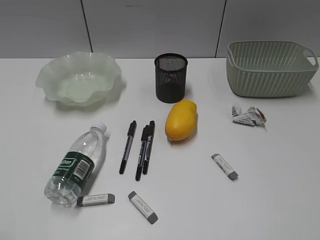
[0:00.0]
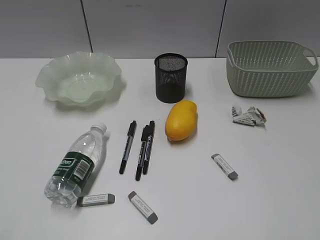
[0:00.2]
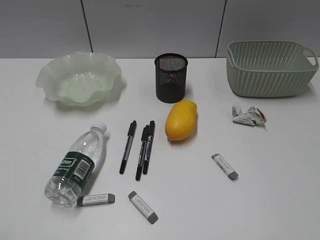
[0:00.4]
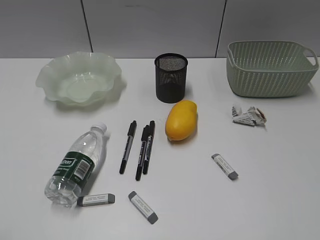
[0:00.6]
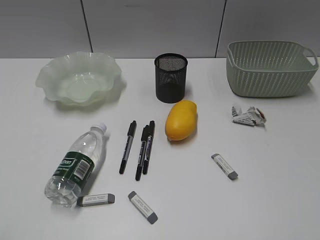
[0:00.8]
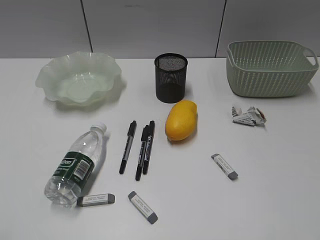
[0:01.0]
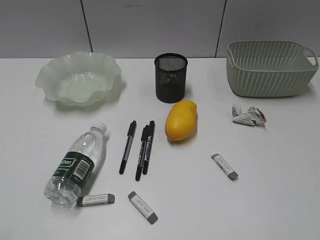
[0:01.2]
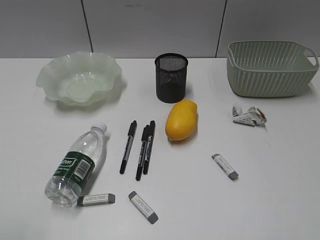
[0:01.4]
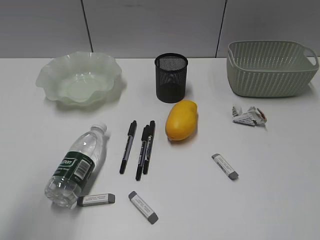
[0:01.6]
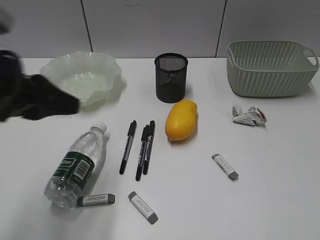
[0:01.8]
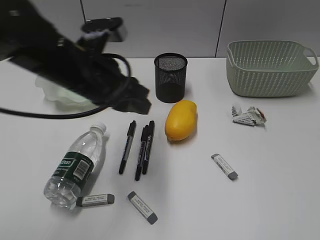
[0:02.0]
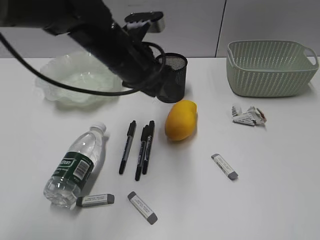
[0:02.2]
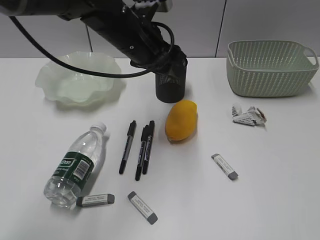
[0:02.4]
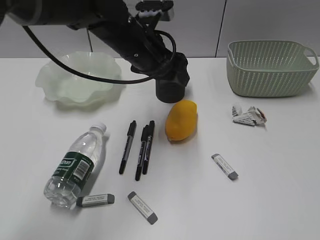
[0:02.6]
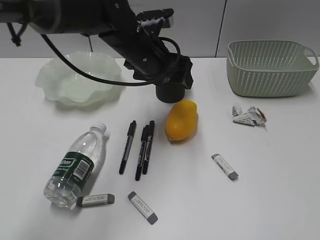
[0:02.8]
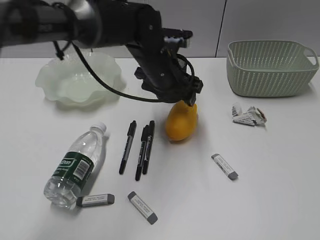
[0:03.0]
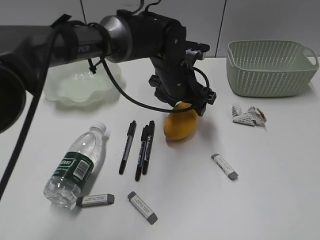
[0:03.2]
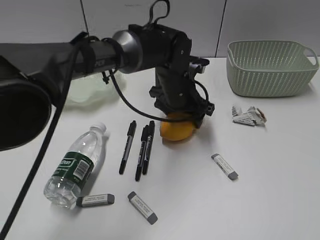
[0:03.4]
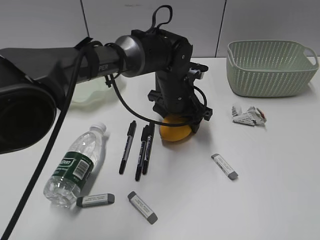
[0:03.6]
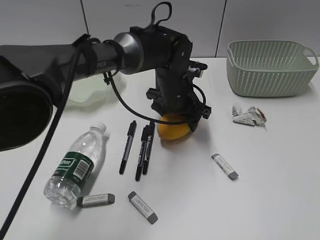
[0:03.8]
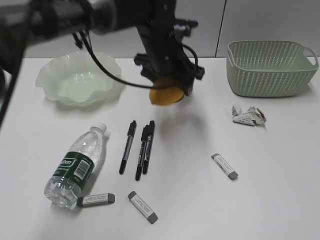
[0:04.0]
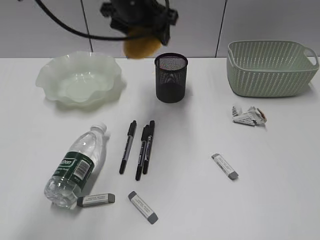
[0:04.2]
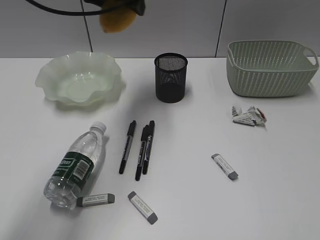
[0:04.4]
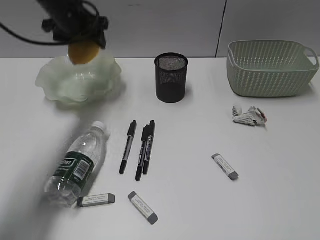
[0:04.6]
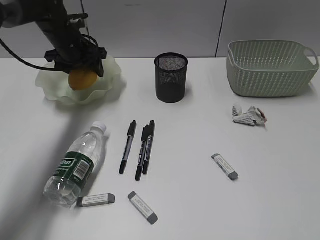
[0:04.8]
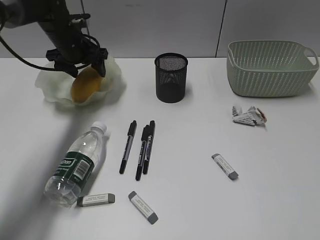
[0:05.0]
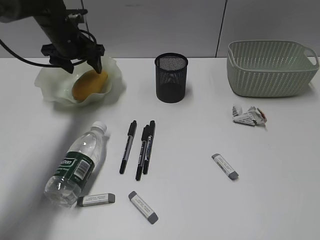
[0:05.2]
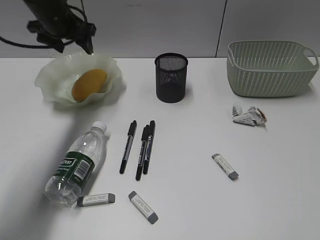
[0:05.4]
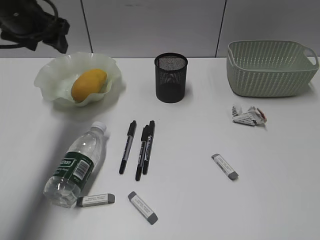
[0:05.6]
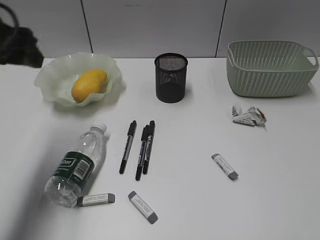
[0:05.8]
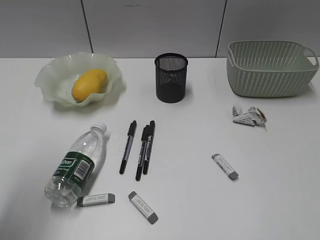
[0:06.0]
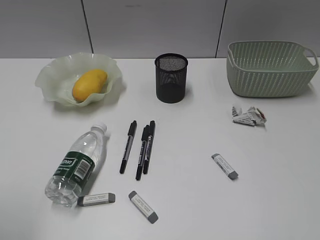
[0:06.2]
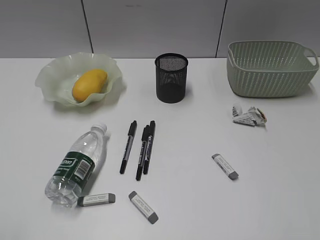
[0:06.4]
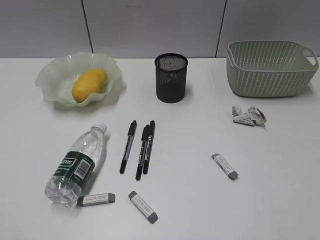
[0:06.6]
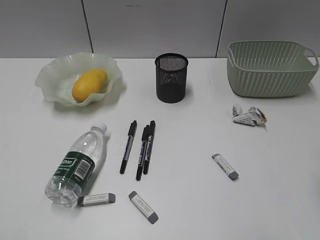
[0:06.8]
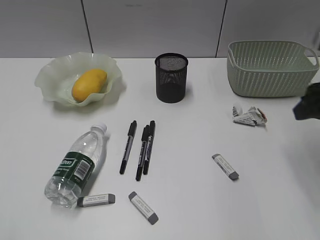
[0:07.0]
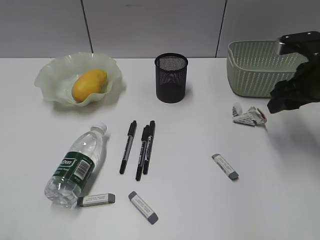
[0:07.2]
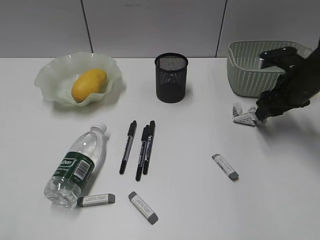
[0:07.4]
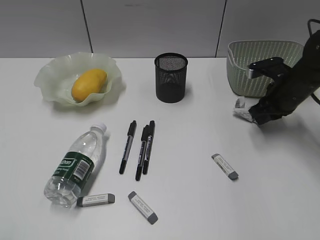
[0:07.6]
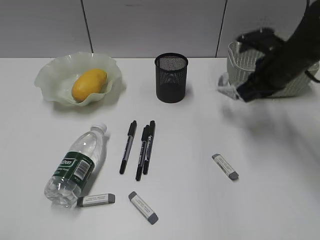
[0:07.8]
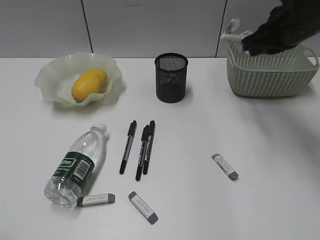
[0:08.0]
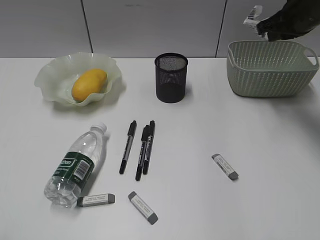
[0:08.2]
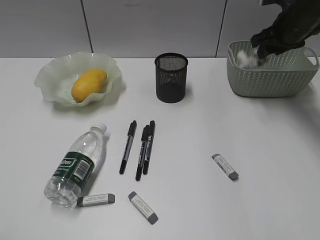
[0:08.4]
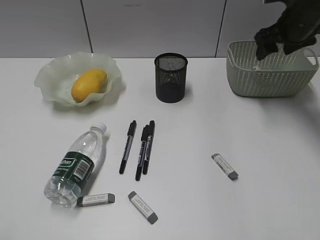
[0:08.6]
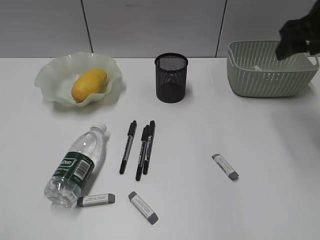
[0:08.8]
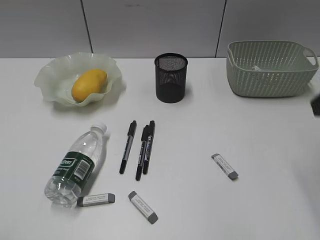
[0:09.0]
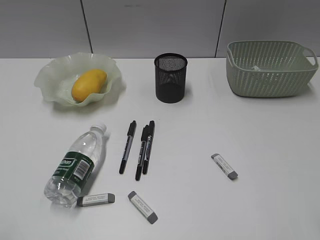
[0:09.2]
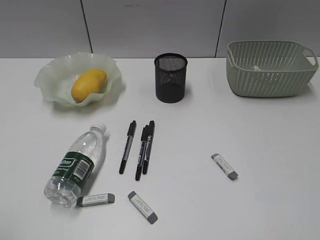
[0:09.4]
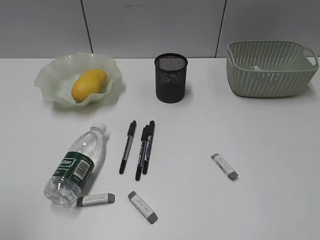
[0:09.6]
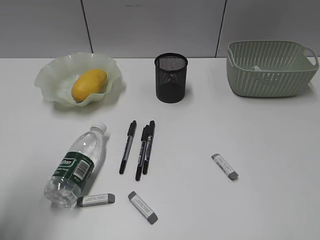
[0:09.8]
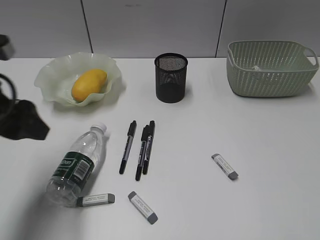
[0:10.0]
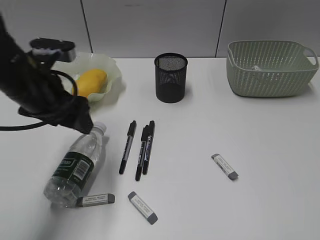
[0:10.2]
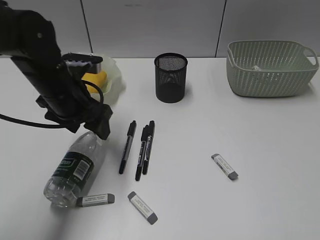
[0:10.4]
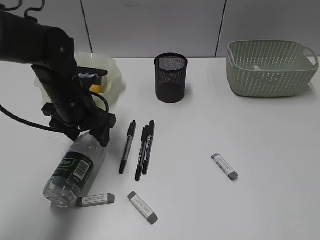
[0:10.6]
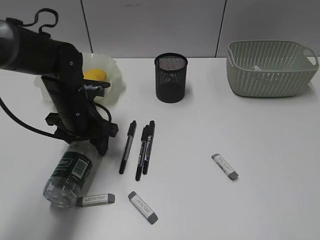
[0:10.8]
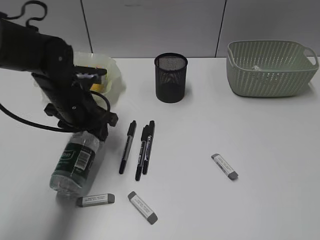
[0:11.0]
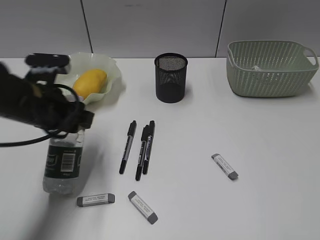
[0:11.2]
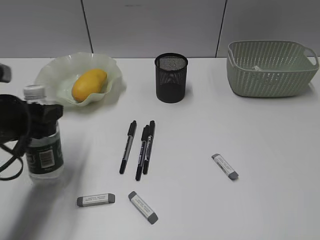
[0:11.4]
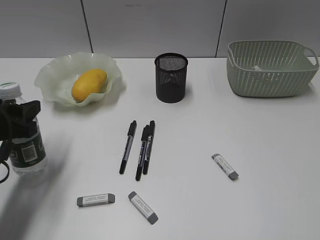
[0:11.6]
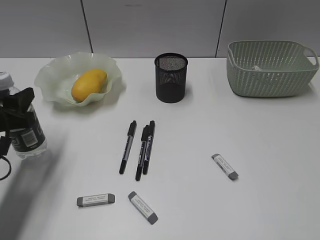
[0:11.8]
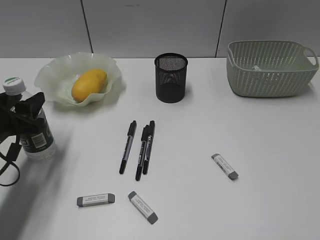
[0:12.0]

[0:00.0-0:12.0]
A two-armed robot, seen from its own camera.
Step, 1.2 to 3.8 s: Grasp the mango with left gripper.
Step, 4.0 to 5.2 s: Place the mango in the plate with left gripper.
Step, 5.4 to 7.6 s: Grasp the waste paper with right gripper.
Step, 7.8 to 8.6 s: Place the waste paper in the basket with right gripper.
Step, 8.8 to 11.0 s: Grasp the bottle with left gripper.
1.6 to 3.0 s: The left gripper is displaced forward, to the right and downward by approximately 40 cm, and opens.
3.0 to 4.4 s: The left gripper is displaced upward and to the left by some 15 cm.
4.4 to 6.0 s: The left gripper shifts roughly 30 cm backward and to the left.
6.0 to 7.6 s: The left gripper travels backward by roughly 20 cm. Meanwhile the right gripper goes roughly 40 cm forward and downward, and closes.
7.6 to 9.0 s: The right gripper is displaced upward and backward by approximately 25 cm, and opens up.
9.0 to 10.4 s: The right gripper goes roughly 25 cm backward. Meanwhile the left gripper shifts some 35 cm forward and to the right.
10.4 to 12.0 s: The left gripper is displaced to the left, backward and downward by approximately 15 cm, and closes.

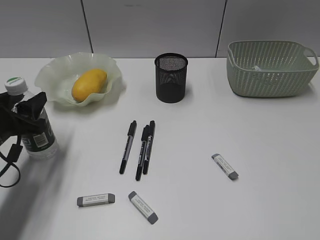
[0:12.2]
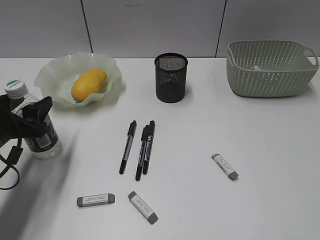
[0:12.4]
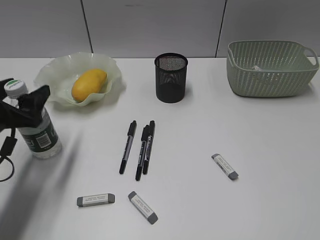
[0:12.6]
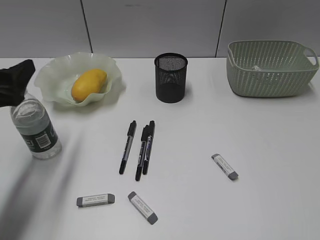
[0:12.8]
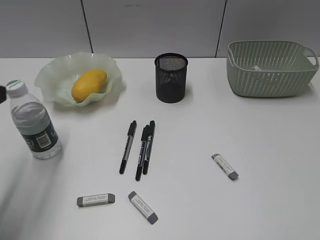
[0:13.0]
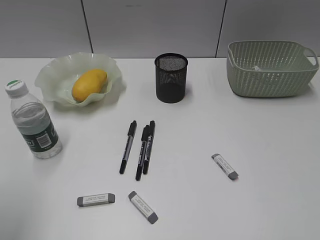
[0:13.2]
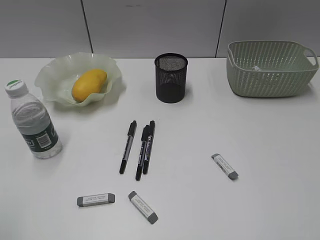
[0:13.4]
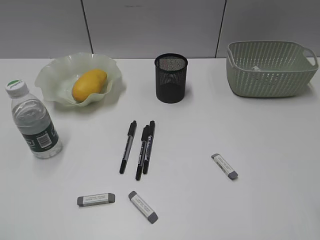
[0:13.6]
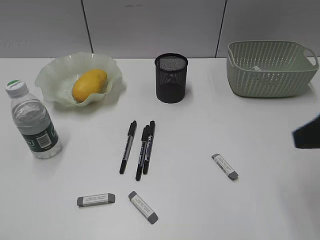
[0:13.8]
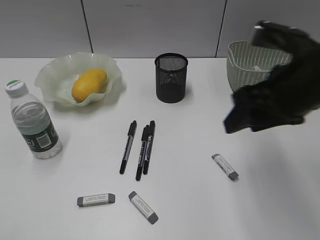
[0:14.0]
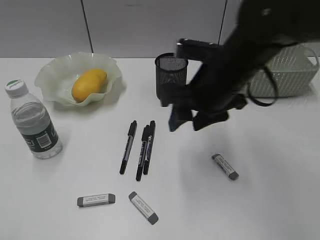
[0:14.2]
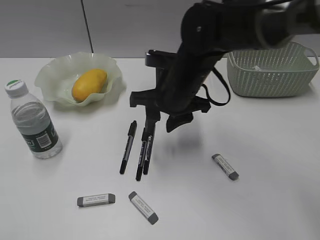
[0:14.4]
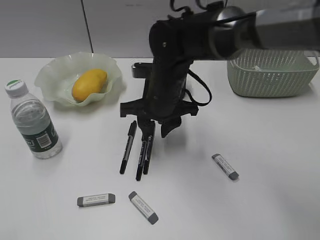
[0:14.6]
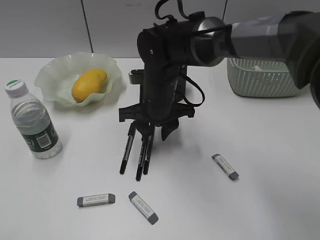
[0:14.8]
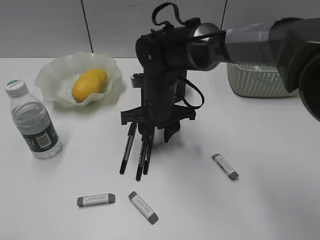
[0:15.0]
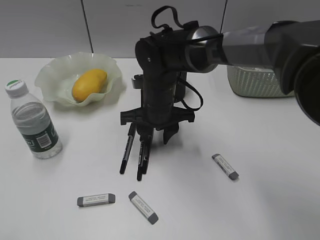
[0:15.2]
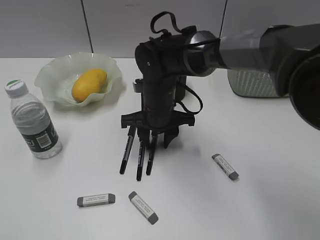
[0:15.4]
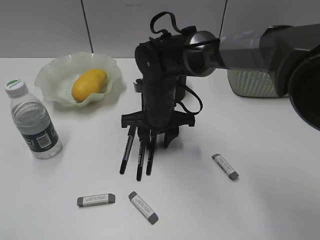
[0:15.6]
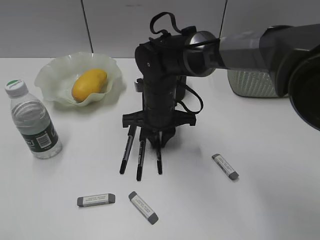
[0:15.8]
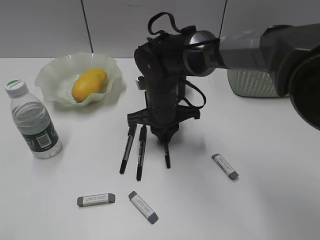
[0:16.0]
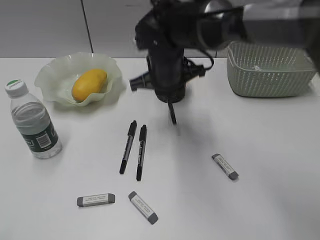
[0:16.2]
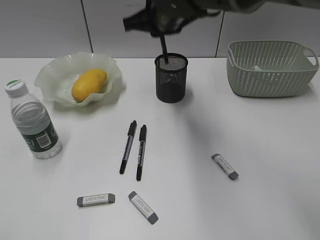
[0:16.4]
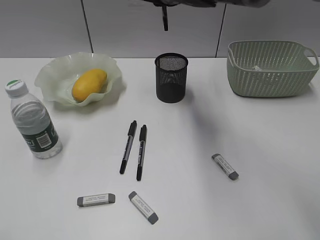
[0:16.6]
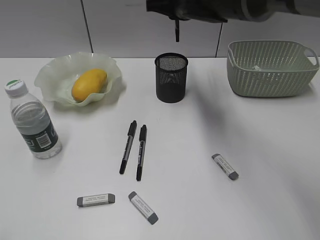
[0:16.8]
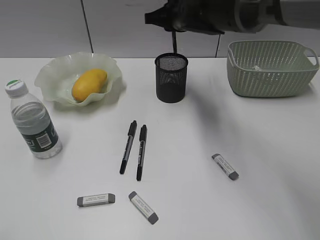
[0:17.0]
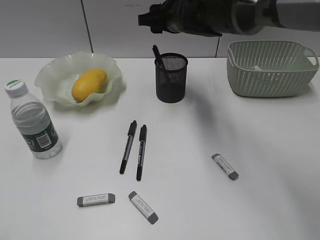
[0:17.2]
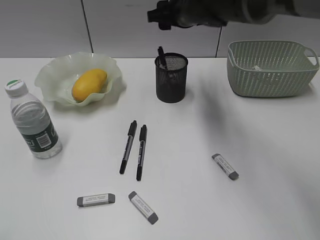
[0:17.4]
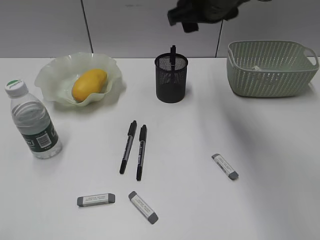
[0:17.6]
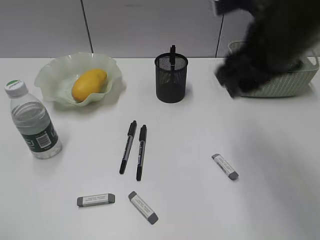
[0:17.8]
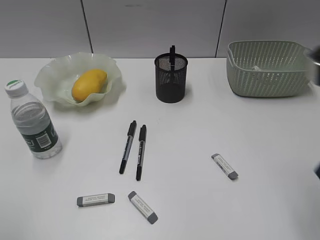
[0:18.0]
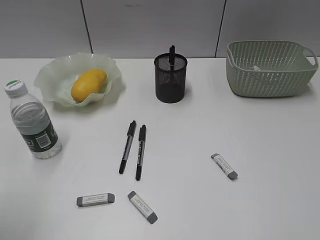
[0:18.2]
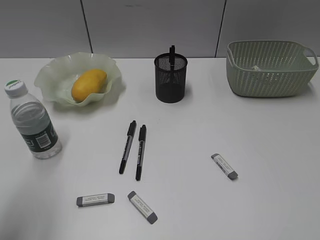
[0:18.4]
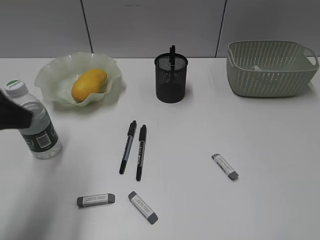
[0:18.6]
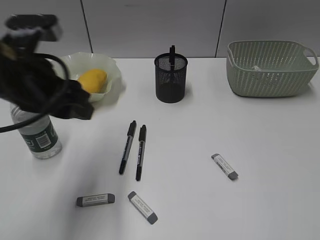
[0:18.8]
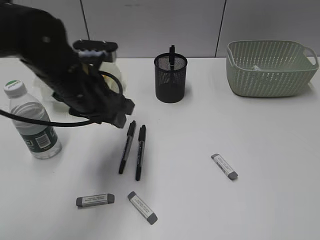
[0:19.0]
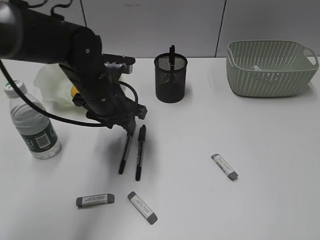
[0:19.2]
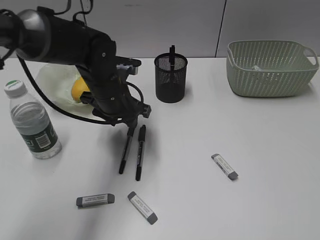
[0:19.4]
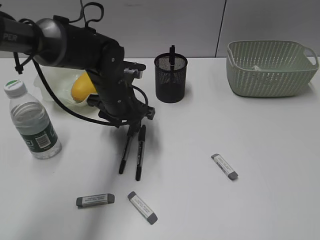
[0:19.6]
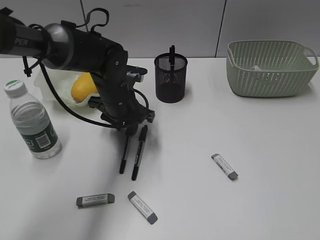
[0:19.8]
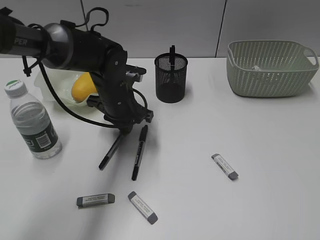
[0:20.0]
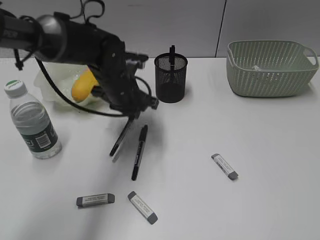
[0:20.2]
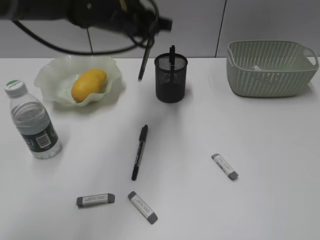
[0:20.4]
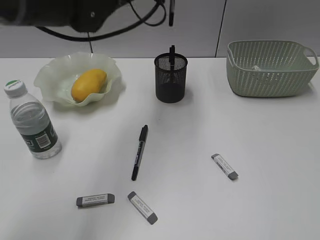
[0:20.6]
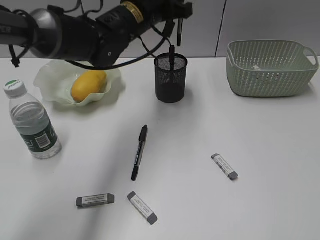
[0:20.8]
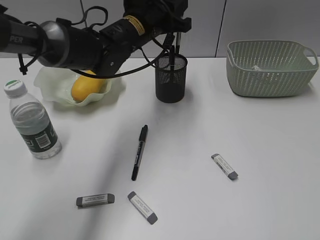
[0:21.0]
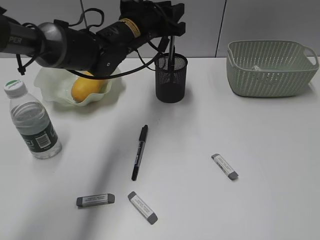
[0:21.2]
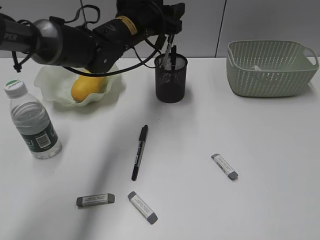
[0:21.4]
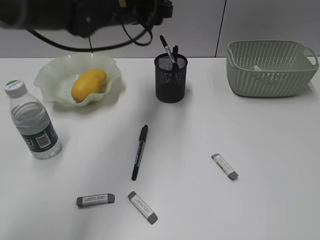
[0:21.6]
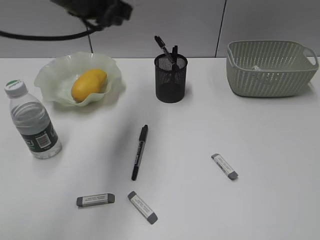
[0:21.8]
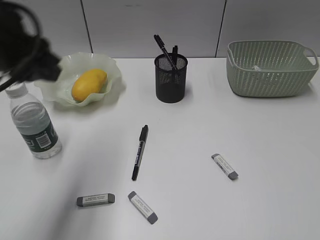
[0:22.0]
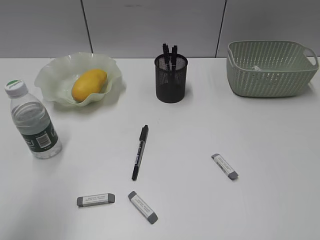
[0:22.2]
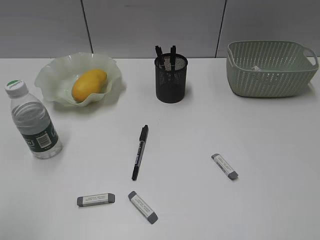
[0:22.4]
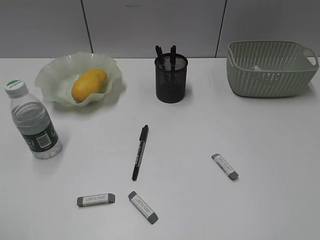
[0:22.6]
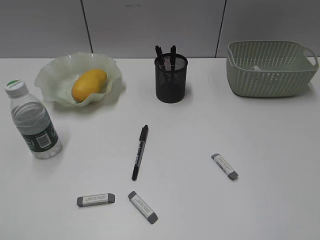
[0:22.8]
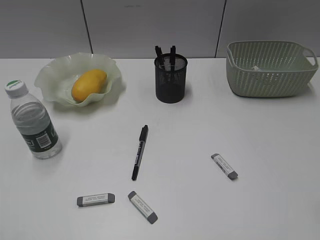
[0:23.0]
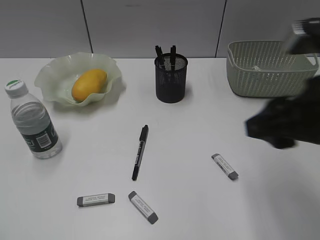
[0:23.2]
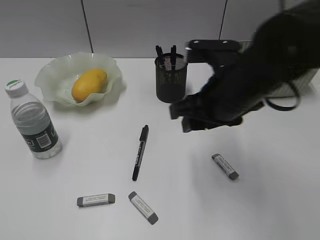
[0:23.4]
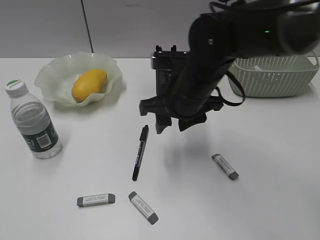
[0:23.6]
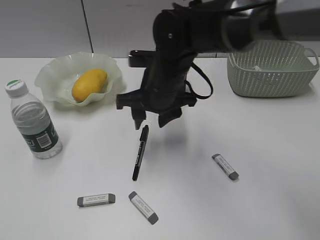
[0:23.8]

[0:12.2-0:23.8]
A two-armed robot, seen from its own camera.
Step, 12.8 to 16.0 s: Grasp the black pen with right gripper.
Step, 17.4 to 20.0 s: Grasp the black pen with left gripper.
Step, 20.2 to 22.2 s: Place the black pen in pen holder with left gripper.
12.2 to 13.6 s: The left gripper heads backward and upward, covering approximately 30 cm.
13.6 to 15.0 s: The right gripper travels to the left, forward and downward by some 40 cm.
15.0 to 16.6 s: The left gripper closes its fingers, while the right gripper moves upward, roughly 15 cm, and closes its fingers.
16.6 to 18.0 s: The left gripper is displaced forward by roughly 5 cm; the right gripper is displaced backward and to the right by about 30 cm, and opens.
18.0 to 19.4 s: The left gripper is displaced forward, to the right and downward by approximately 40 cm, while the right gripper is displaced backward and to the right by about 20 cm.
19.4 to 21.0 s: The left gripper is displaced upward, forward and to the right by about 10 cm, and closes its fingers.
21.0 to 22.4 s: The left gripper is displaced backward and to the left by approximately 40 cm, and opens.
22.4 to 23.8 s: The right gripper moves forward and to the left, about 40 cm, while the left gripper moves backward, roughly 5 cm.
